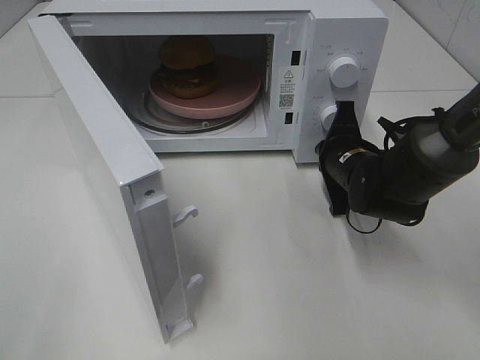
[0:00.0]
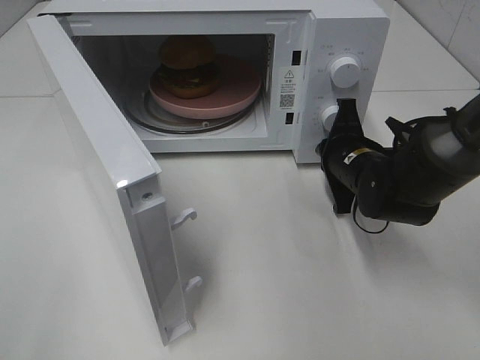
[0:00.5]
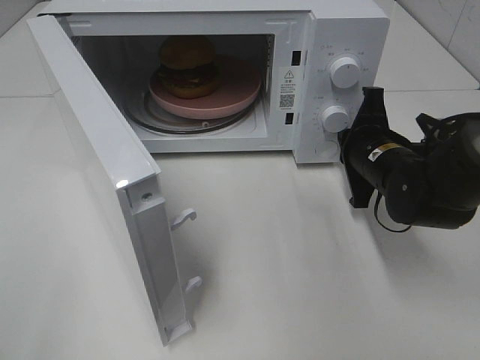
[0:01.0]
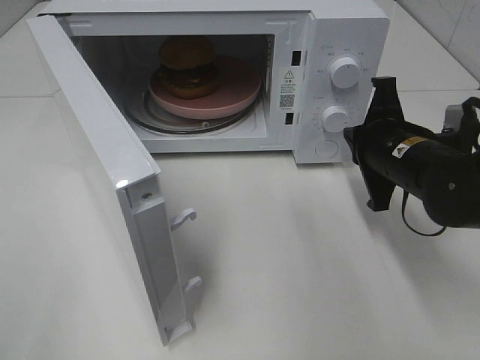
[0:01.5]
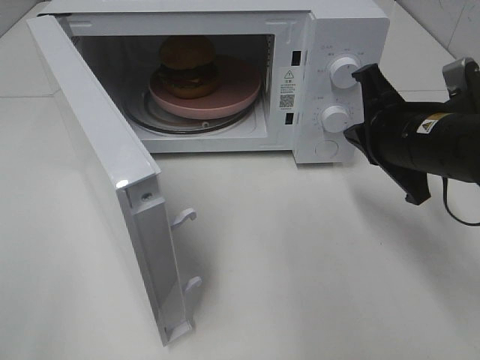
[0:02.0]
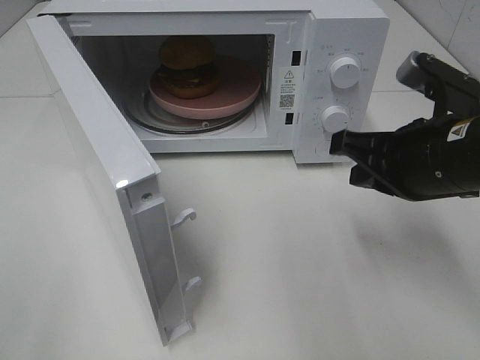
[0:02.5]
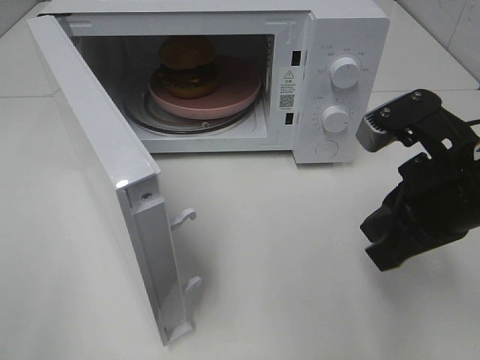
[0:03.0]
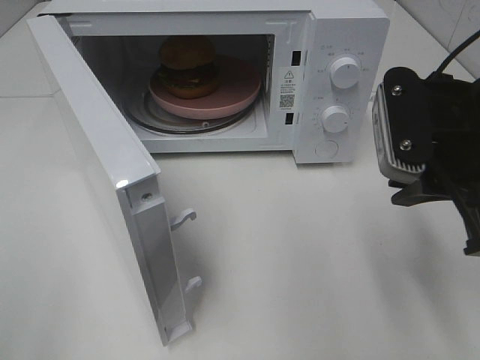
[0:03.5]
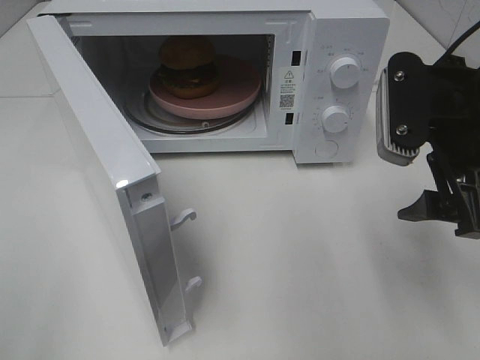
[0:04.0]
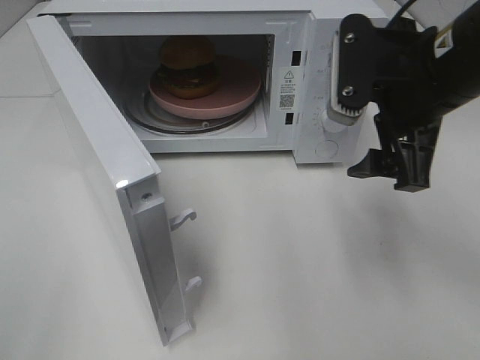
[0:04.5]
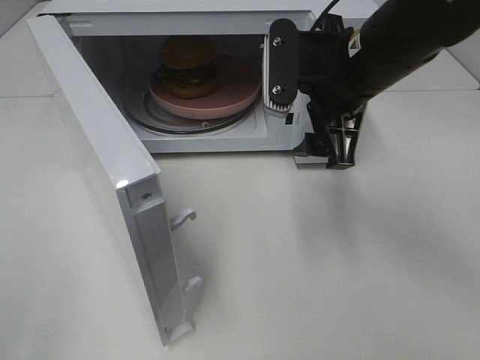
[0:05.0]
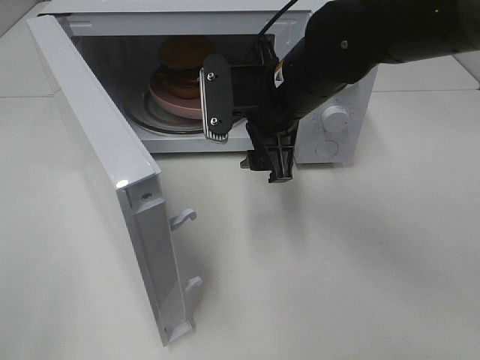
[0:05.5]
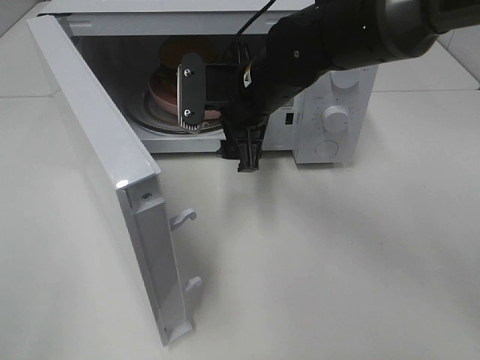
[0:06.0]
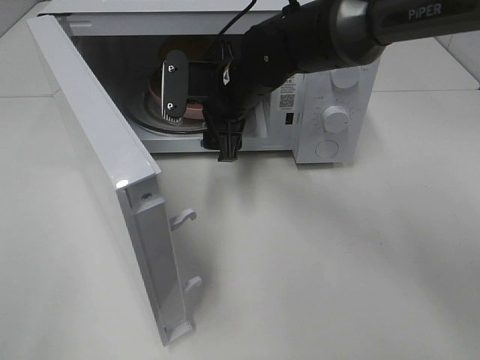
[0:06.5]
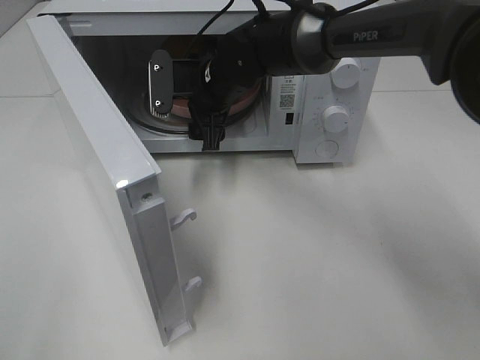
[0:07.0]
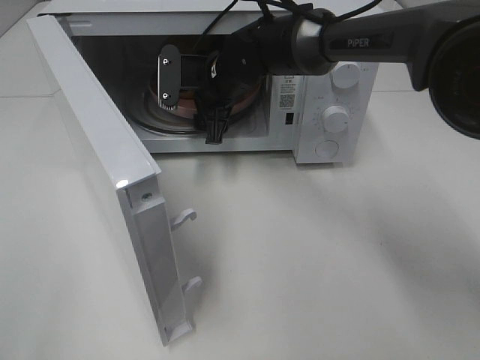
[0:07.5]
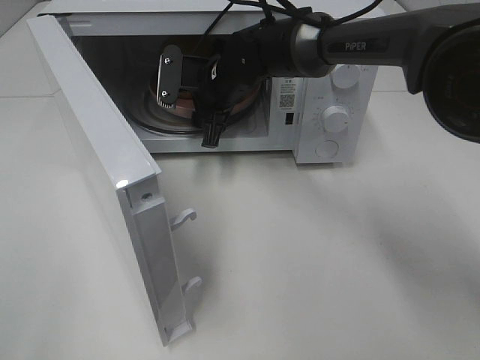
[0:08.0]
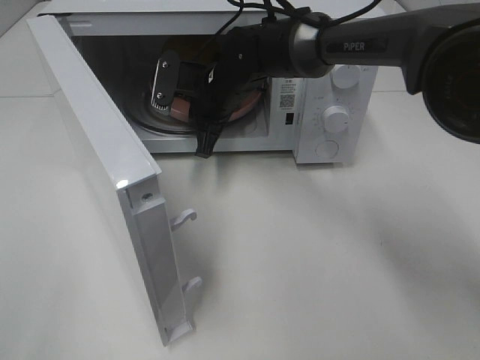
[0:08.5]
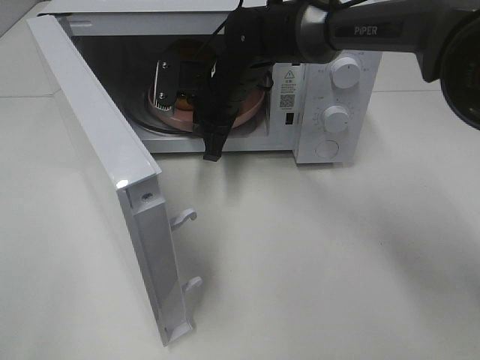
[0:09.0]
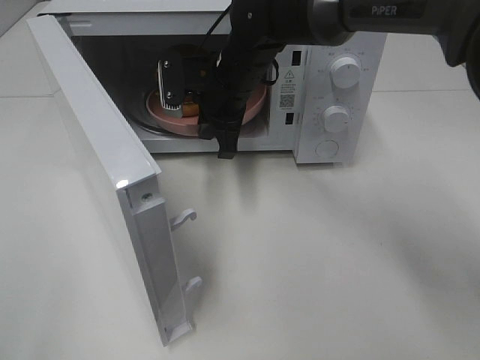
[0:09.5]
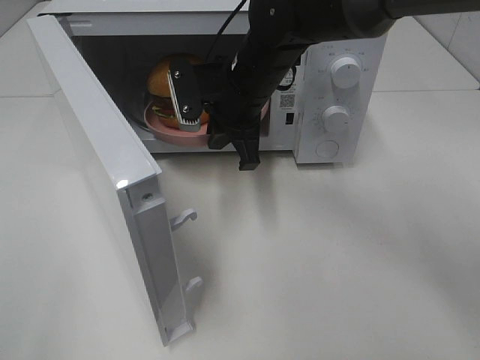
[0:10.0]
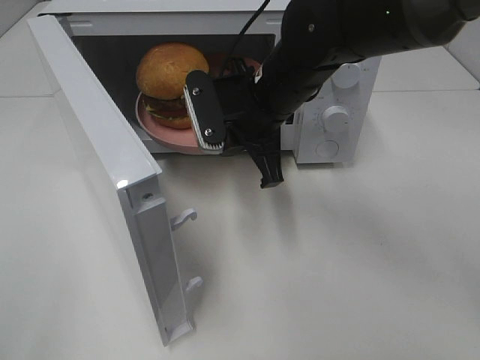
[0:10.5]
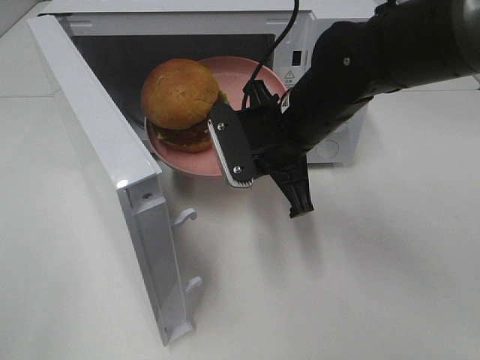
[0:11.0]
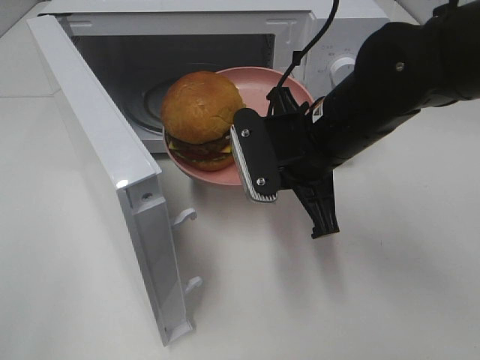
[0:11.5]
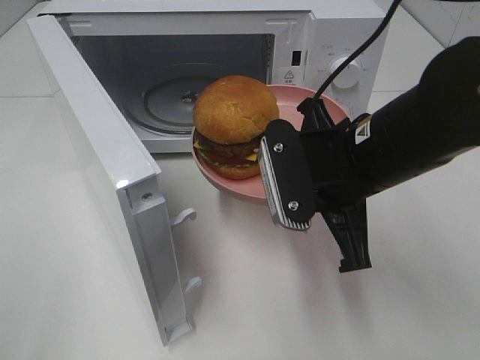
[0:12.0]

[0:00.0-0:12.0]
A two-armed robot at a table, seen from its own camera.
Task of the whole recording: Heat the burger.
Step, 0:01.0 to 0:08.0: Right hand: grab the plate with the hamburger.
0:00.0 to 0:02.0: The right gripper is displaced upward and backward by roughly 15 cm.
0:02.0 to 0:04.0: The right gripper shifts roughly 5 cm upward, and opens its fingers.
0:04.0 to 0:06.0: The right gripper travels to the left, forward and downward by approximately 25 cm.
0:06.0 to 0:08.0: The right gripper is displaced forward by roughly 10 cm.
0:08.0 to 0:10.0: The right gripper heads backward, covering some 5 cm, and closes up.
0:10.0 to 0:12.0: The right gripper moves backward and to the right, approximately 20 cm.

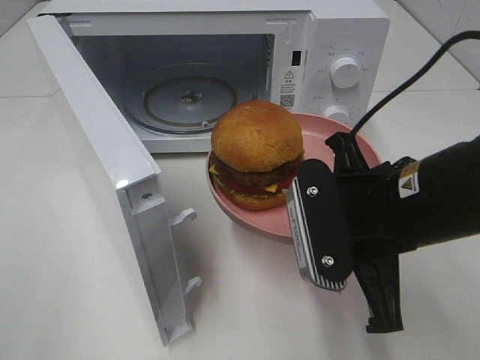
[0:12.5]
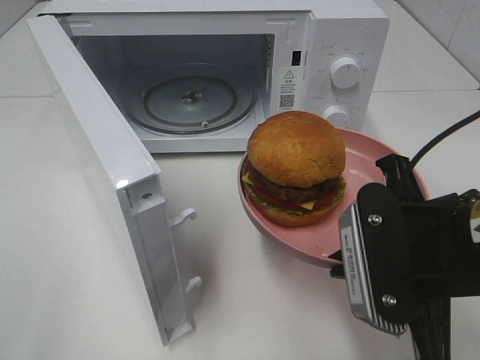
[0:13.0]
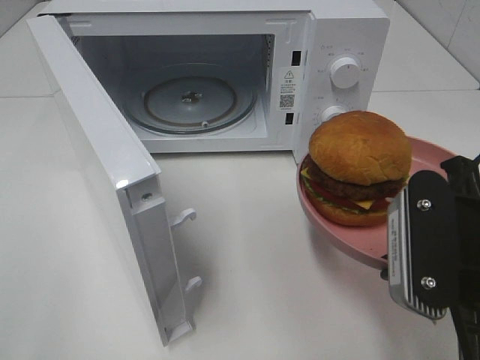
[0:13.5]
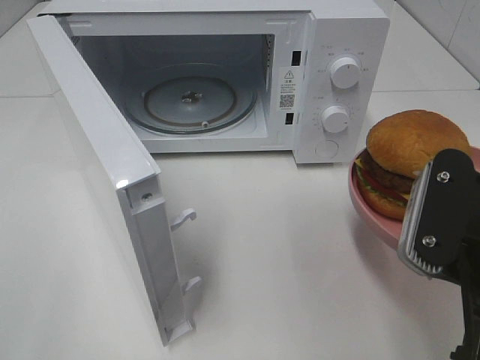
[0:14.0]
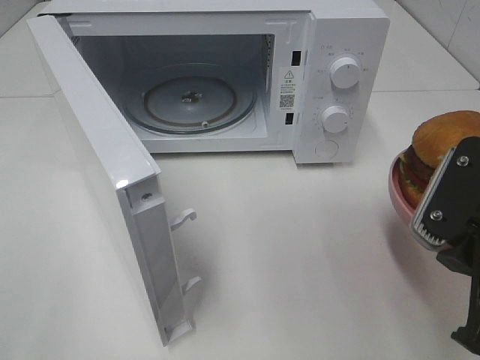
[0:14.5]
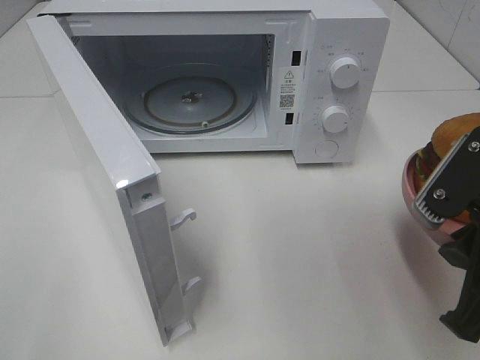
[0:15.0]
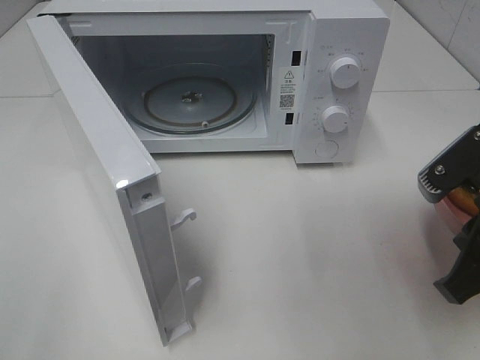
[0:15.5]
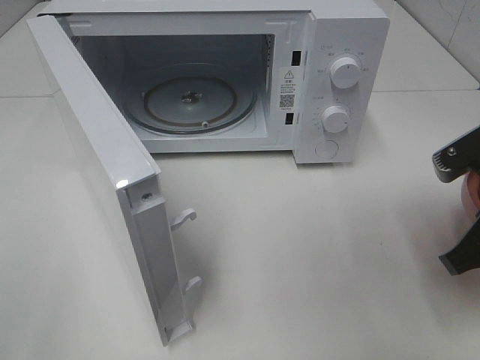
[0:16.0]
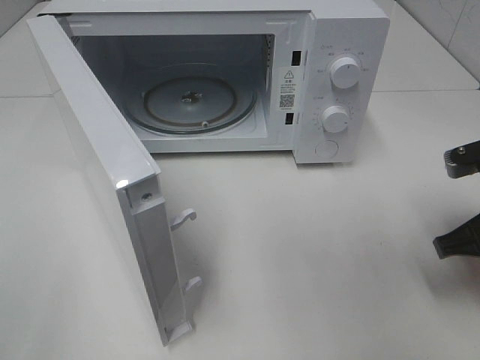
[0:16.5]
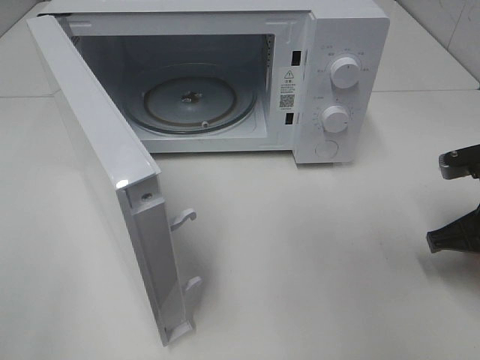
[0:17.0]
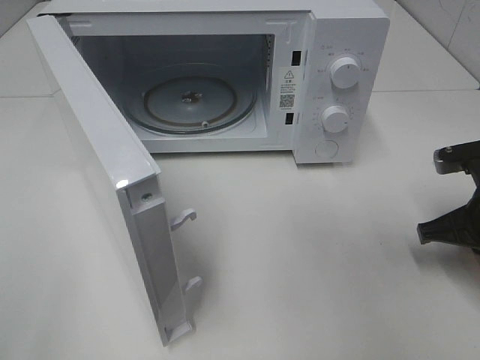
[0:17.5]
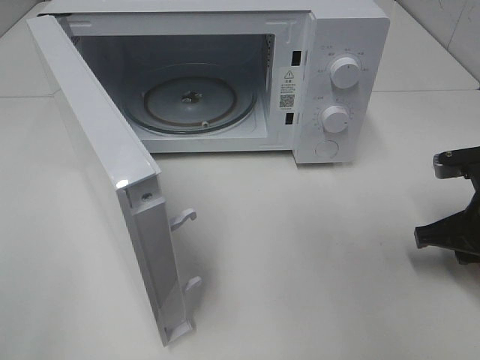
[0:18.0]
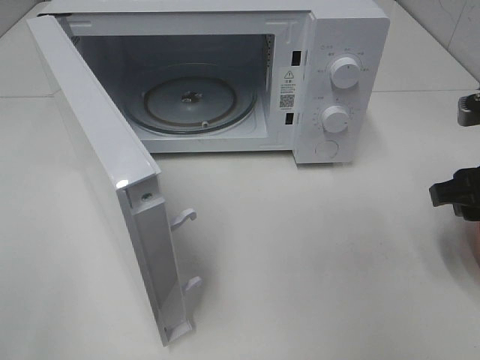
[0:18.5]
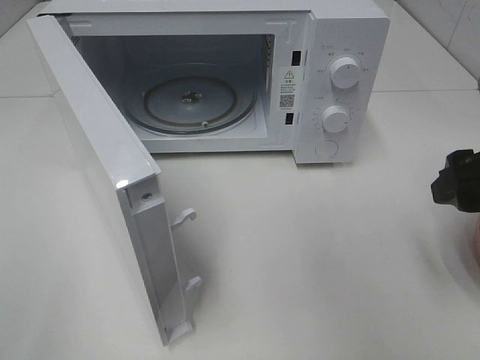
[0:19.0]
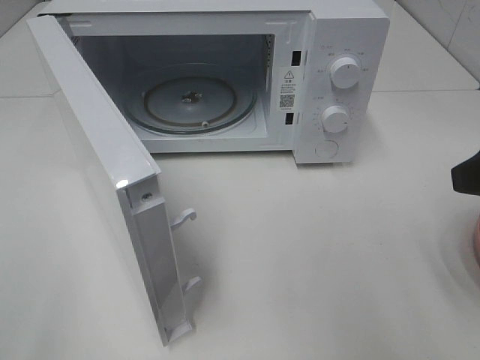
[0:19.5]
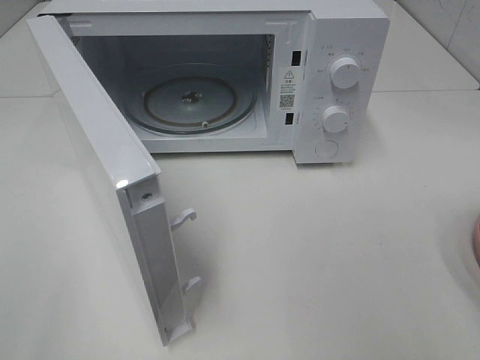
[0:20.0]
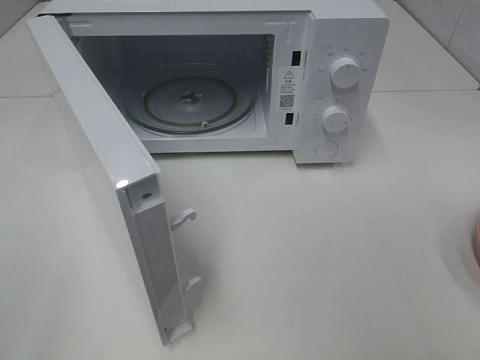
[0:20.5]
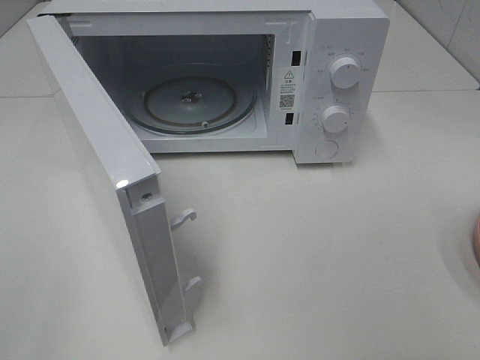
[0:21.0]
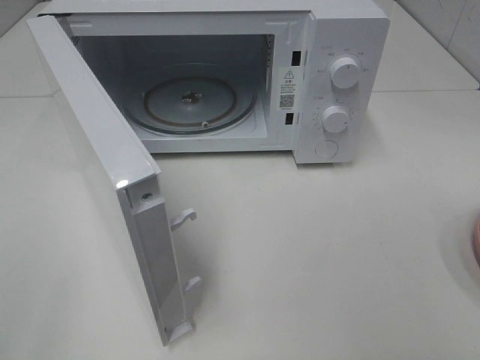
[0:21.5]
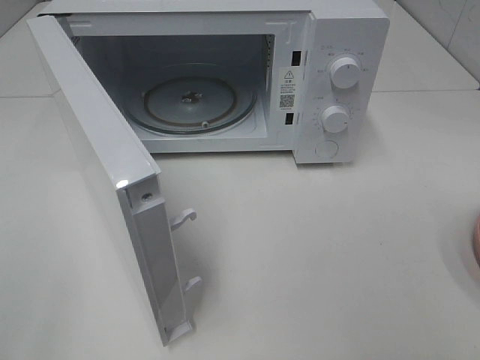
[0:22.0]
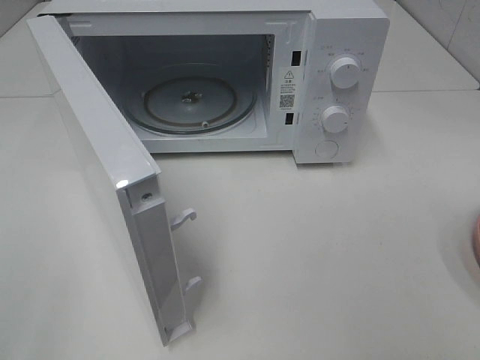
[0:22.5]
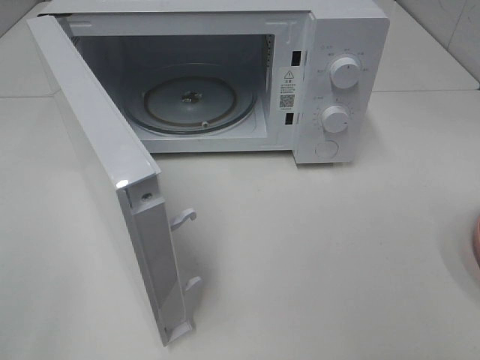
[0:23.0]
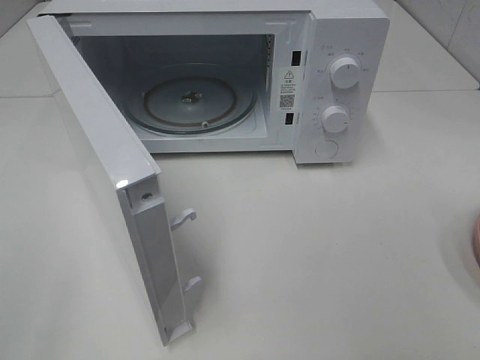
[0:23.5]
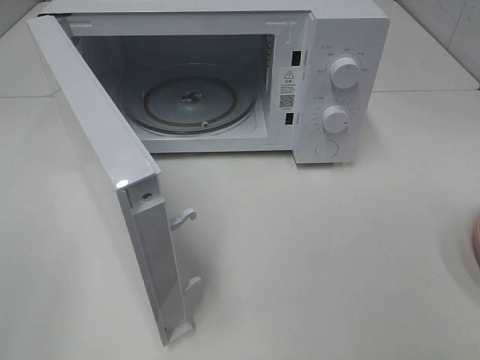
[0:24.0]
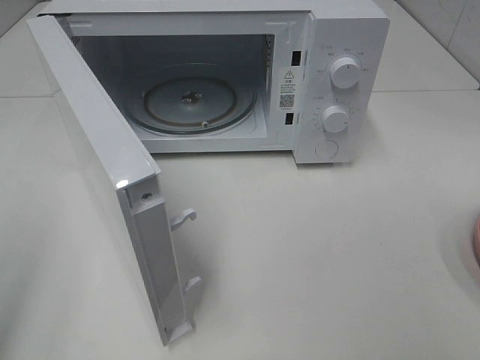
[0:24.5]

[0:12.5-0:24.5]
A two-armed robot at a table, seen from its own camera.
Task of the whole recording: Heat the burger.
Step, 0:12.5 to 0:17.5: Right hand: place the plate on the table.
0:12.5 to 0:14.5: The right gripper travels to the right by about 10 cm.
0:14.5 to 0:16.5: The right gripper travels forward, downward and to the right by approximately 10 cm.
0:16.5 to 0:18.5: The right gripper opens up.
0:18.5 to 0:20.5: The right gripper is displaced backward and upward by roughly 25 cm.
0:20.5 to 0:22.5: Both grippers stay about where they are.

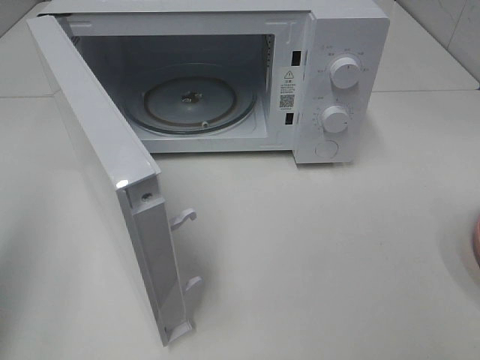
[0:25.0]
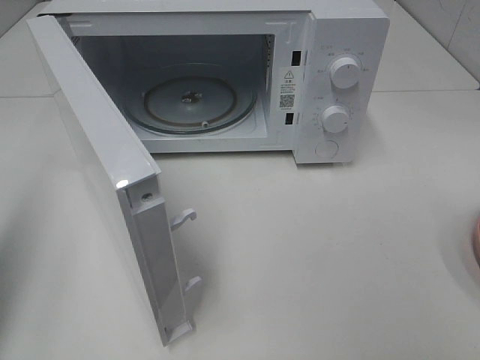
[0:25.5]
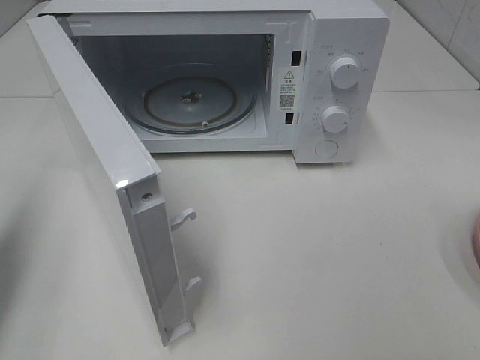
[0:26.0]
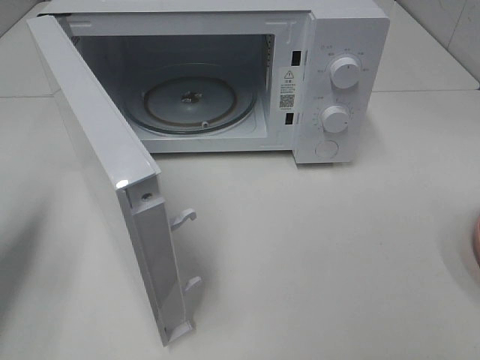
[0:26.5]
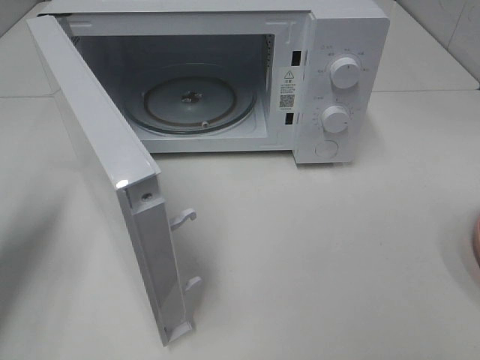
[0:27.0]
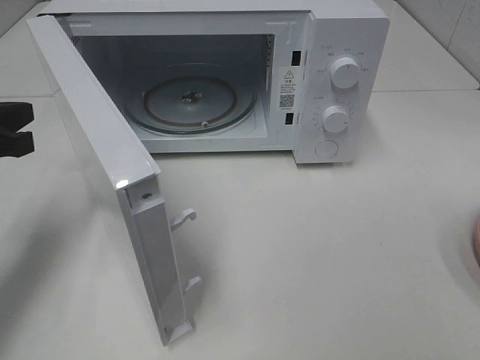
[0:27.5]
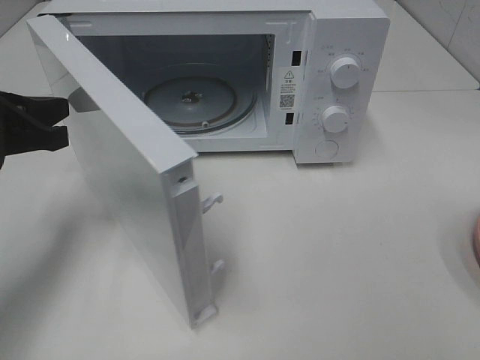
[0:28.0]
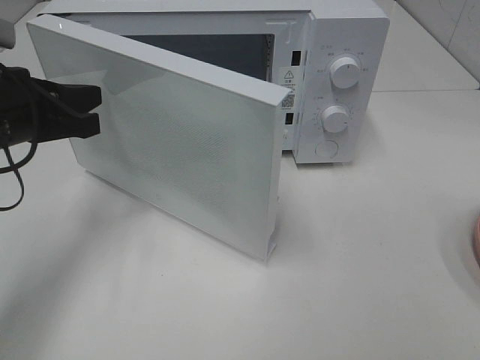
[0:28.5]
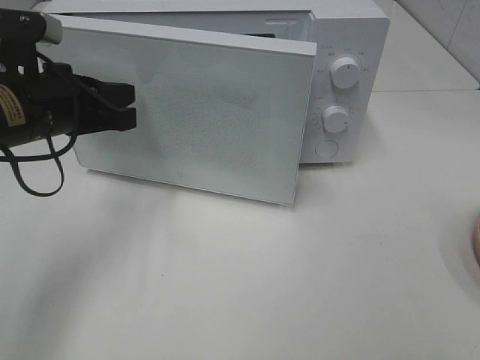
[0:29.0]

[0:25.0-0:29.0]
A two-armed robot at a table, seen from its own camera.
Task of the whole recording: Heat the burger.
0:25.0 to 0:27.0: The left gripper heads downward and forward, covering about 15 cm.
0:27.0 to 0:29.0: The left gripper travels to the right and forward by approximately 15 cm.
